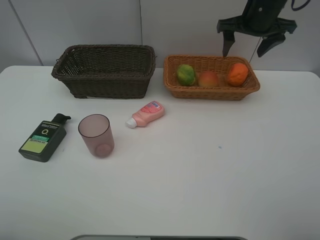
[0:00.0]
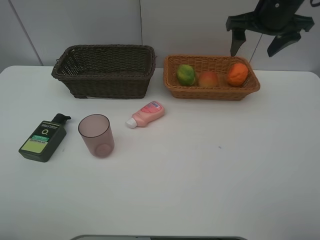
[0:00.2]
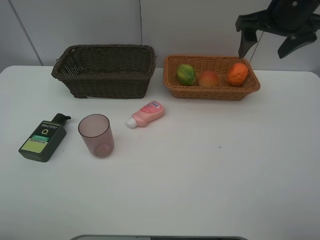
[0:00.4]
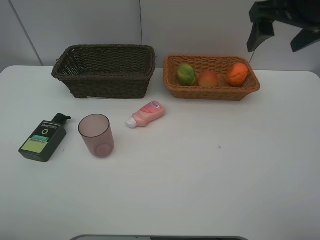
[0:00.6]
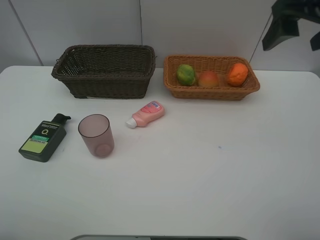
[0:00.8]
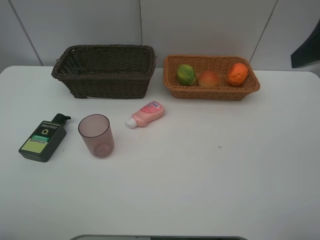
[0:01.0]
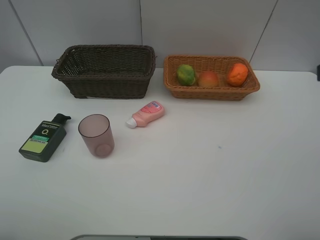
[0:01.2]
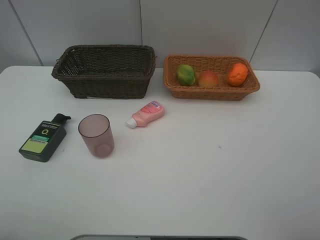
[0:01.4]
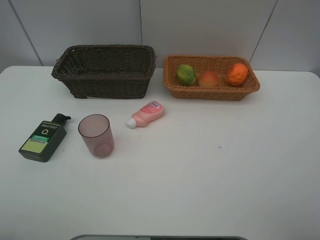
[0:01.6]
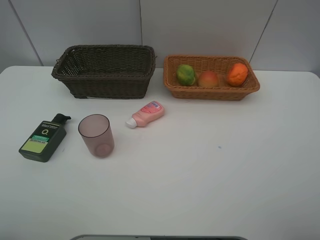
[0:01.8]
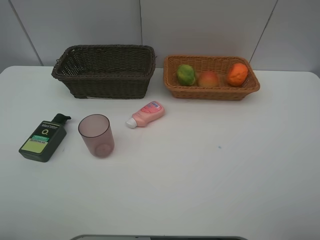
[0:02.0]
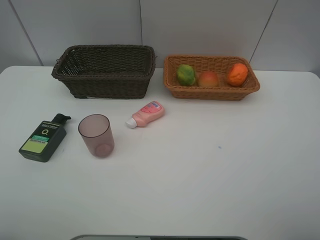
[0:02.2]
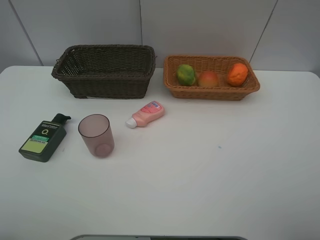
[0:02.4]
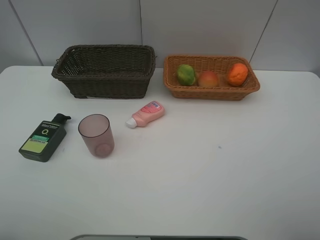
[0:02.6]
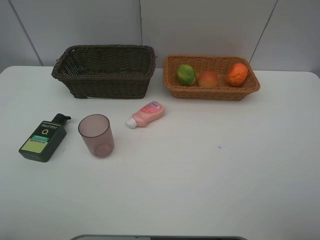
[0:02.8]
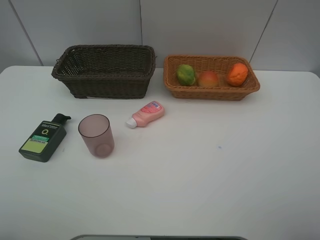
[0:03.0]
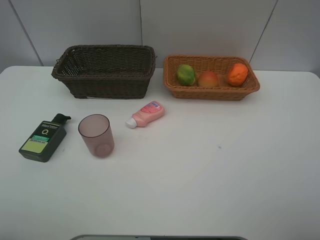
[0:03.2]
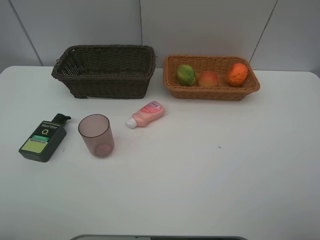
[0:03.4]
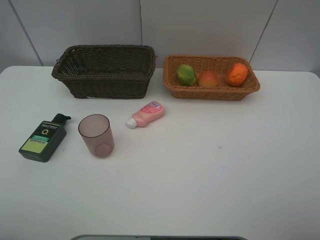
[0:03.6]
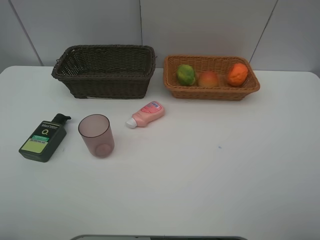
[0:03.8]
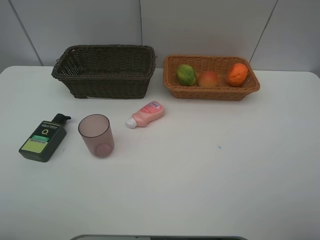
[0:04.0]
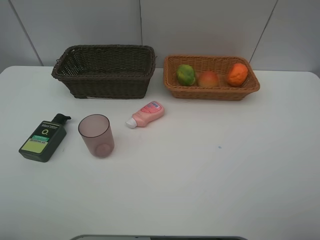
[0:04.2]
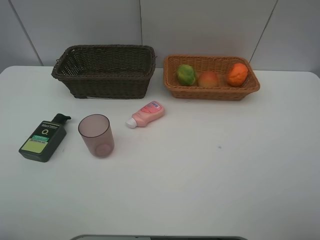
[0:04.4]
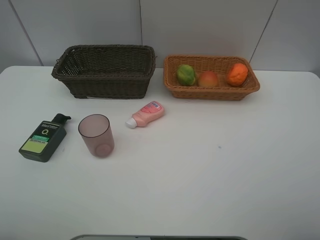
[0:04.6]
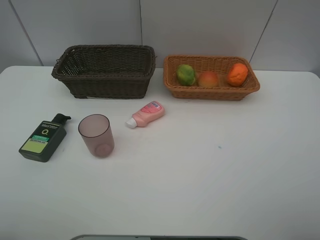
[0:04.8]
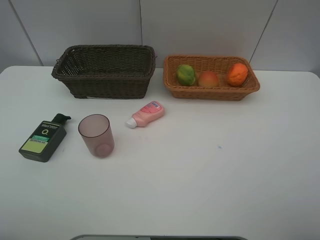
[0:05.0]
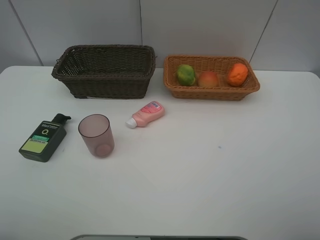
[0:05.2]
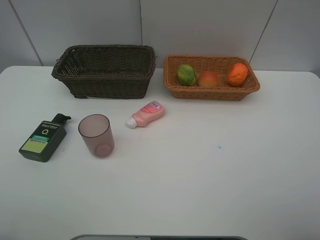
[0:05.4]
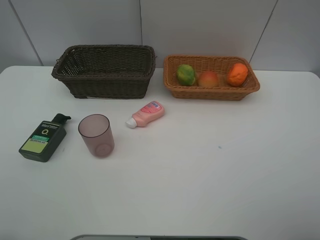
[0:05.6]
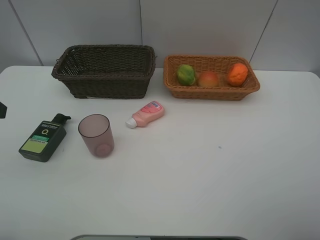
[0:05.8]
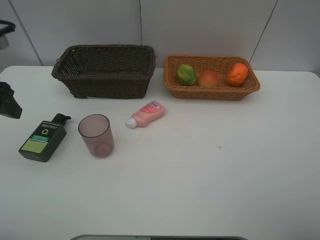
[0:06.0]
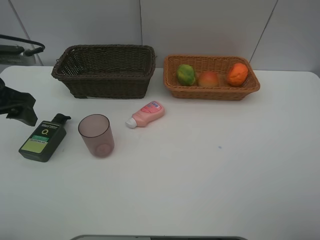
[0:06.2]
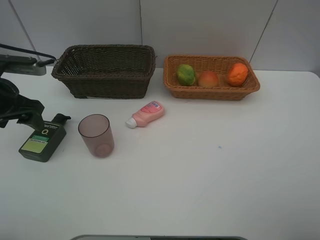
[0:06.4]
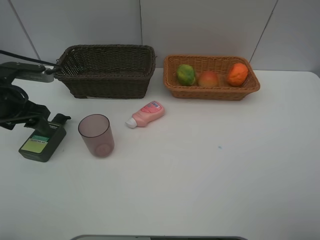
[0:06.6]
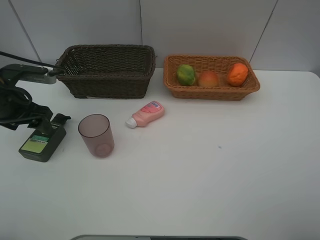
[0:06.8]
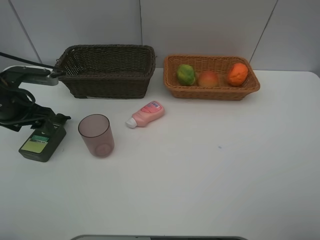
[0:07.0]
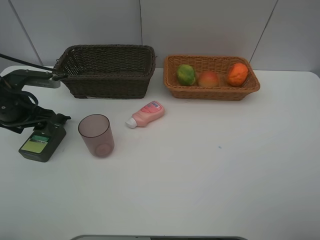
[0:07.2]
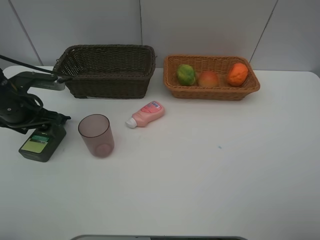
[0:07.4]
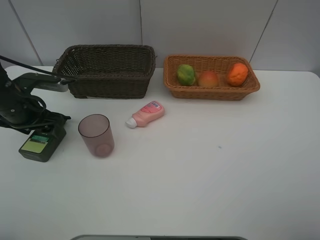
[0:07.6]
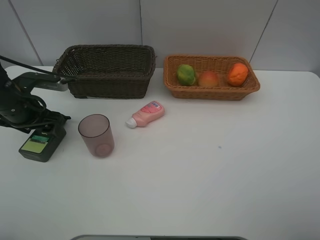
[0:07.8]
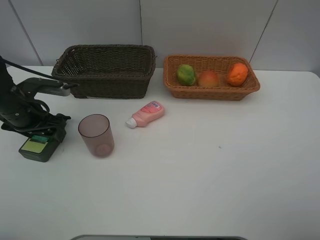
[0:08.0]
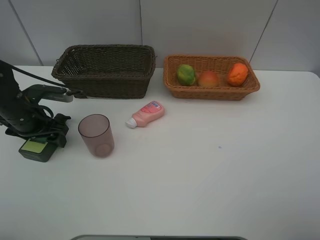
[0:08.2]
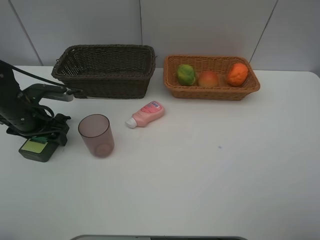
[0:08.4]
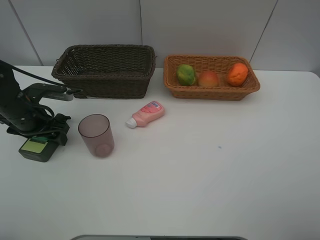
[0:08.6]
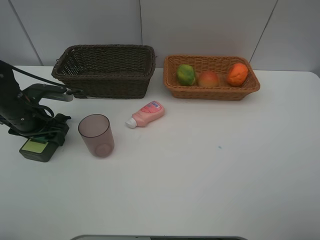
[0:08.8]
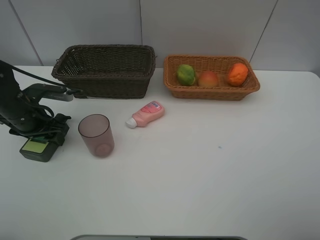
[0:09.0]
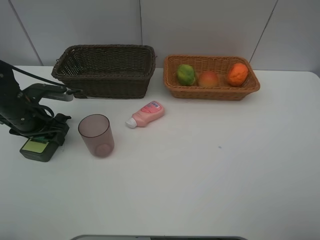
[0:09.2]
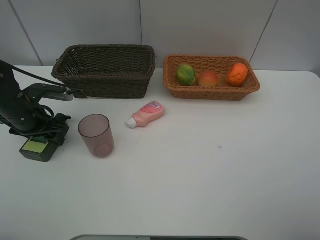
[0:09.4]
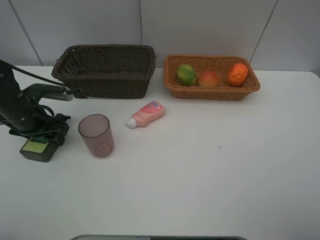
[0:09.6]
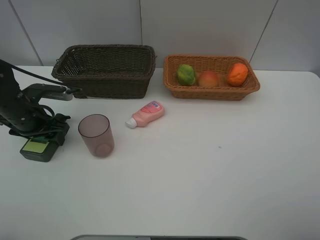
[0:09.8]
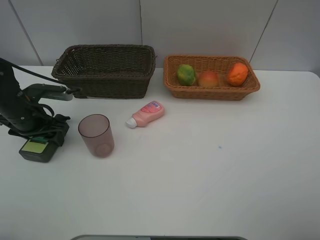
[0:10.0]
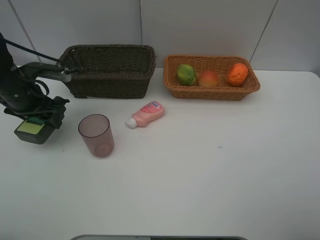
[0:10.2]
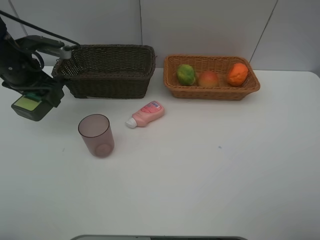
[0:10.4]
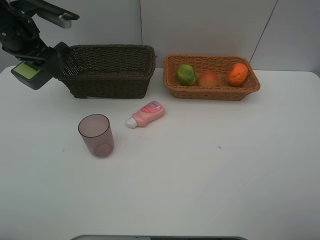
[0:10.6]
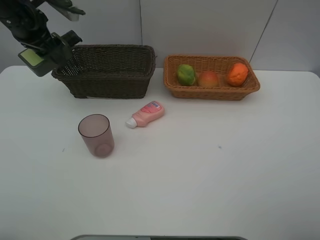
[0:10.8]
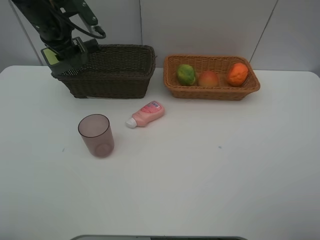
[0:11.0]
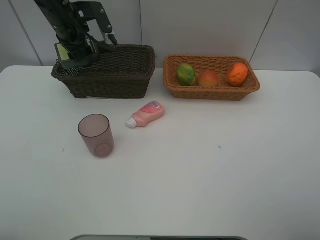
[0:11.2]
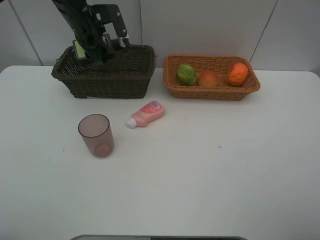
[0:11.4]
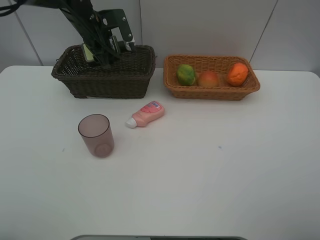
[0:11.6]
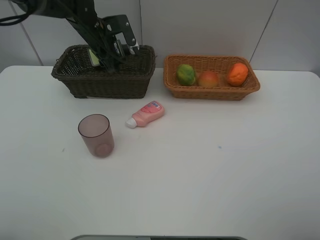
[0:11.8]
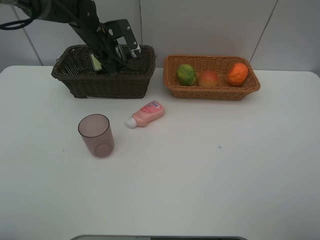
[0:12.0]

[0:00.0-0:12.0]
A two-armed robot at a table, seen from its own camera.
Task of the whole recording: place multiple objects separately in different baskets.
0:00.0 to 0:01.6: The right gripper moves backward, roughly 40 cm.
0:04.4 to 0:06.0: The left gripper travels forward by approximately 20 cm.
0:06.0 to 0:07.6: The left gripper heads downward and forward, covering some 15 cm.
0:07.6 to 0:09.0: The grippers make only small movements.
0:09.0 to 0:10.4: The left gripper travels upward and forward by about 10 cm.
0:10.4 to 0:12.0: The left gripper goes some 20 cm to the right and forward.

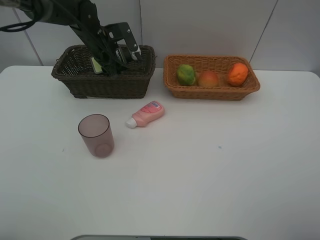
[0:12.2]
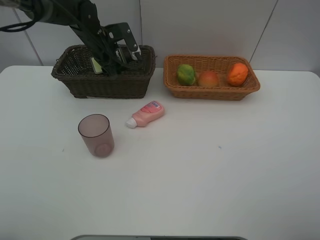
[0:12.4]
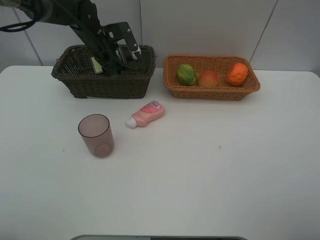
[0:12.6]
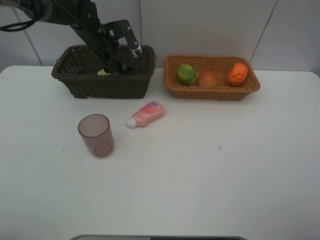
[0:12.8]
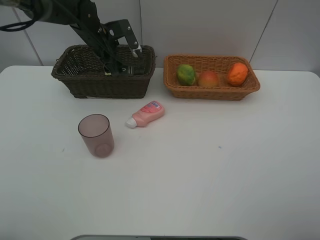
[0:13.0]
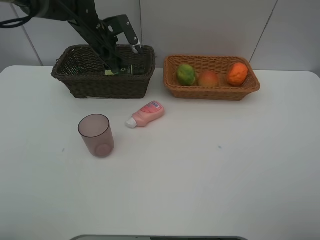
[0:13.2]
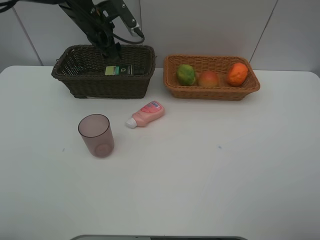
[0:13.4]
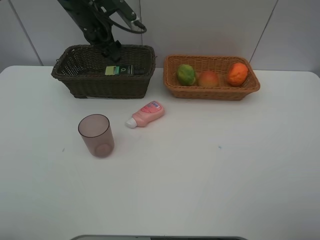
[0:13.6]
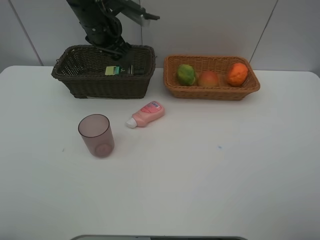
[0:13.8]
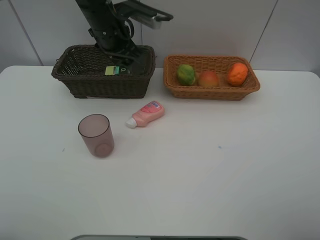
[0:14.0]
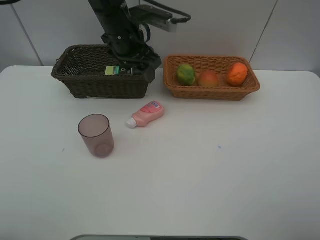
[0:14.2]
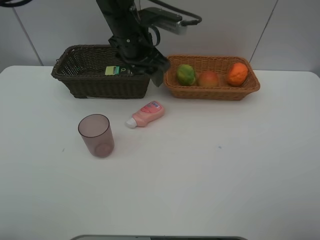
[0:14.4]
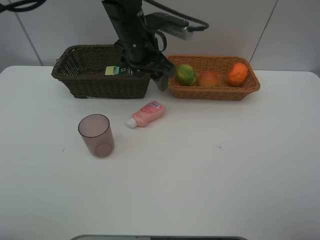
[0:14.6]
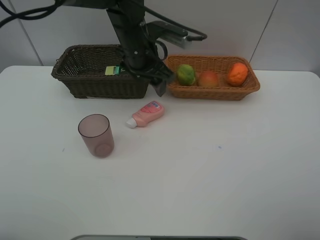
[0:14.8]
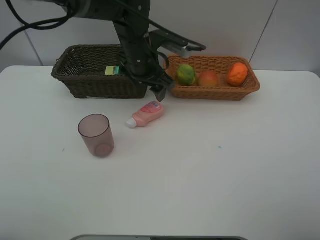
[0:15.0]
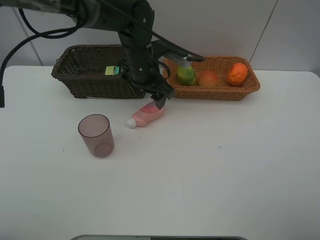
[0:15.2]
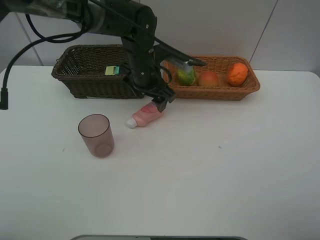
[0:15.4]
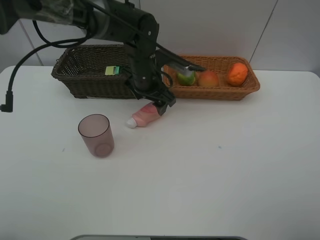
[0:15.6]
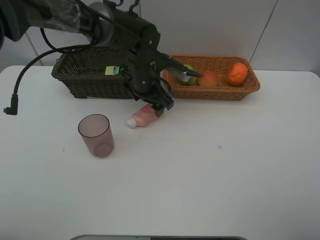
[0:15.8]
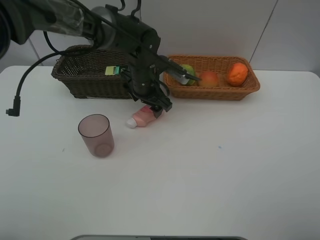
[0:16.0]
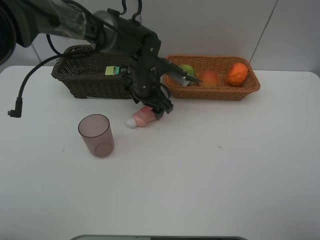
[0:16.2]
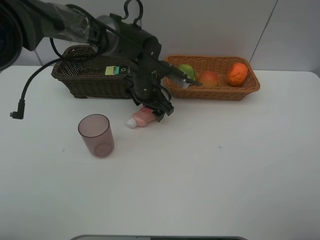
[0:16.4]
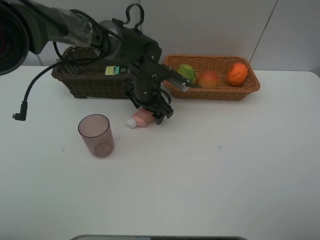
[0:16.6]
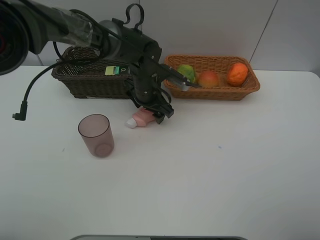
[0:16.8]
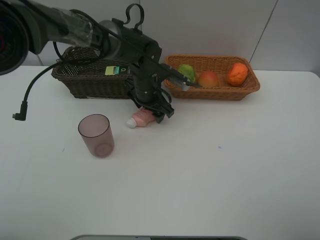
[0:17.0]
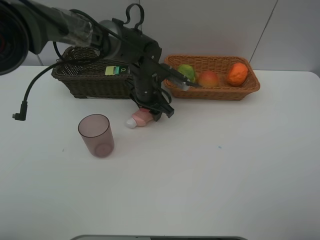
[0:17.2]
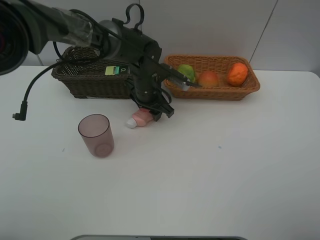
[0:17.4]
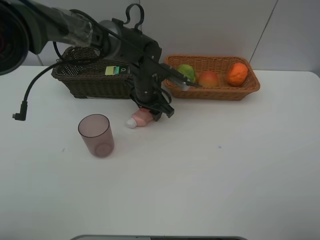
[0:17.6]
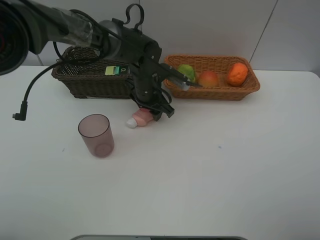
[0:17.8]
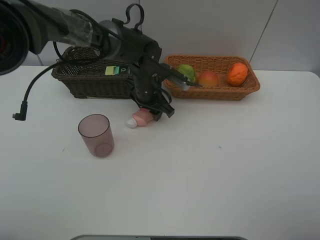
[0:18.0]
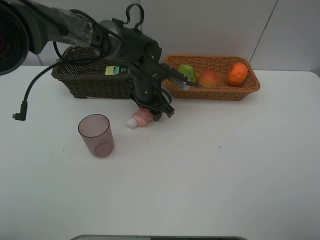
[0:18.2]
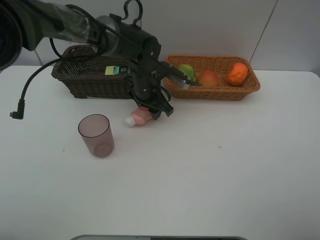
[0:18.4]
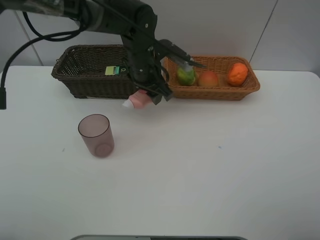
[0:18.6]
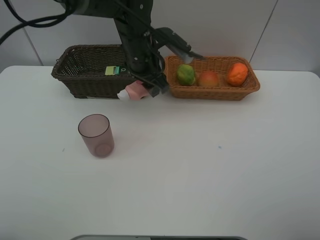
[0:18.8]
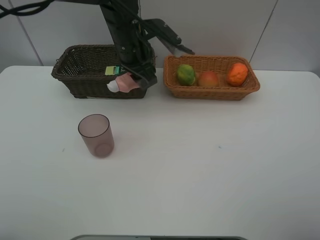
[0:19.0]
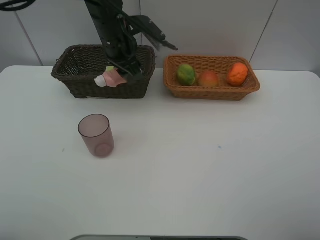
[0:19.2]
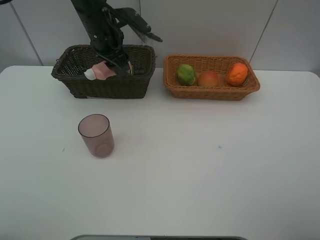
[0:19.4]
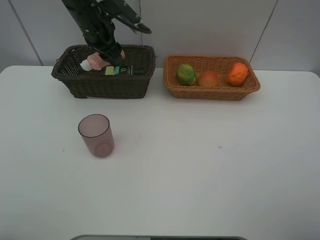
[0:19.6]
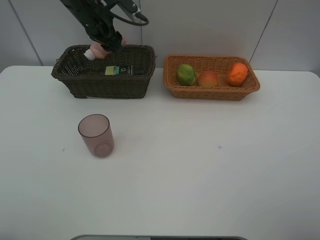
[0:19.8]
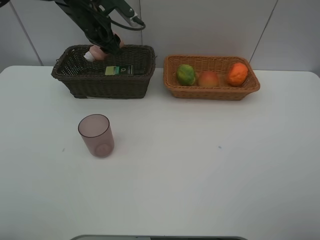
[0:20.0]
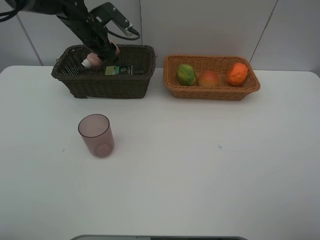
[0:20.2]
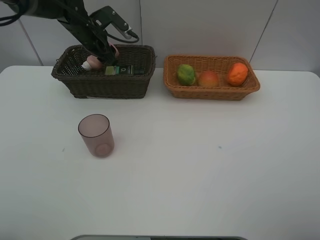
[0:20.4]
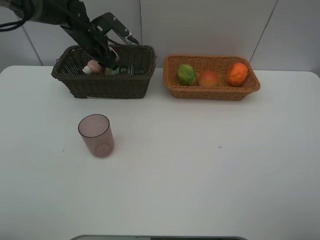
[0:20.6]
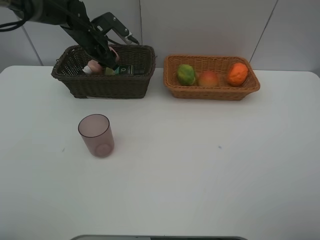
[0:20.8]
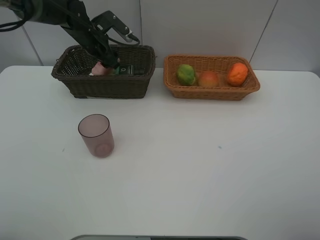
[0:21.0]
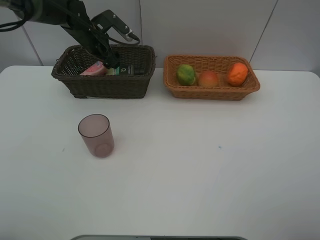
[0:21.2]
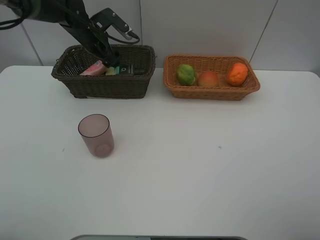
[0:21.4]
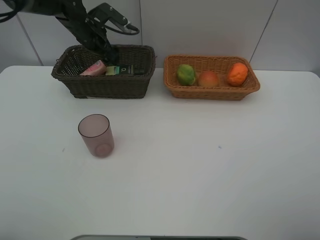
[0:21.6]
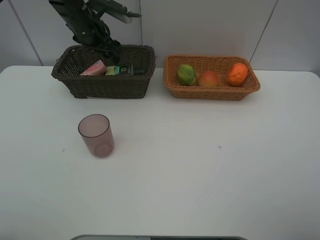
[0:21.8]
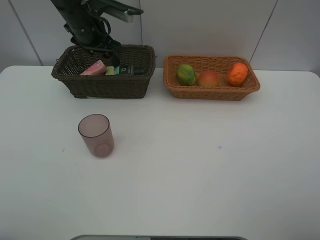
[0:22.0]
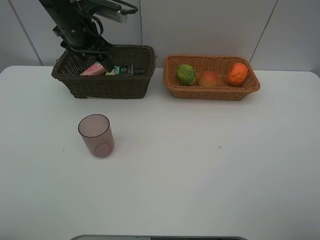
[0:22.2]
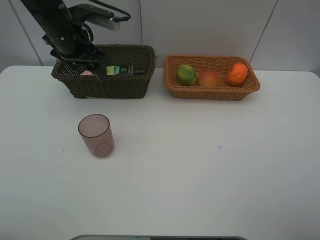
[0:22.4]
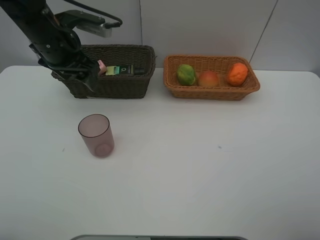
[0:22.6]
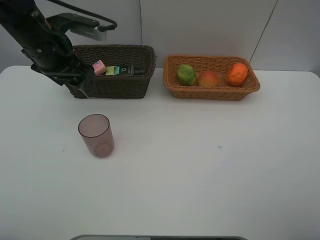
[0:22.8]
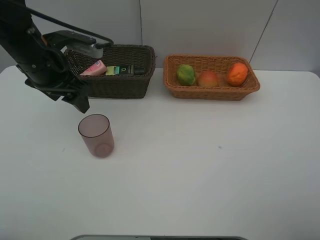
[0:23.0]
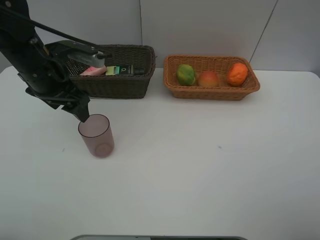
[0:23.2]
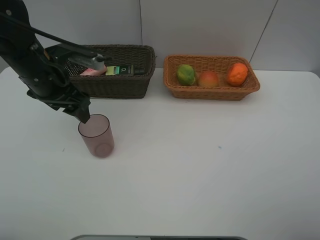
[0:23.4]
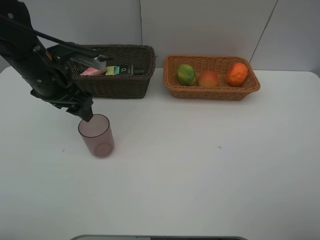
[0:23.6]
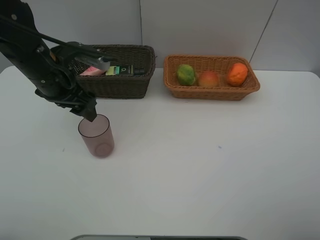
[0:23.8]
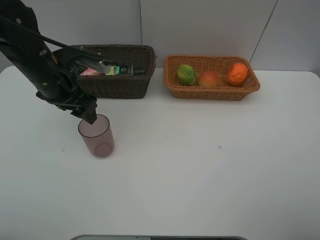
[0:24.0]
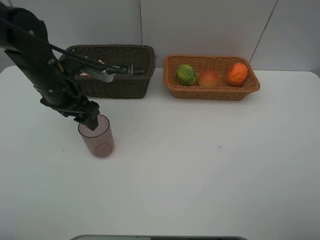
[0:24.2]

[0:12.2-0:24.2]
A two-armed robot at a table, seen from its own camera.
Task of the whole recording: place multiple objects separately in different baskets.
0:12.2 to 0:13.8: The left gripper moves upward and backward, roughly 10 cm.
0:13.8 to 0:15.2: The left gripper moves to the right and downward, some 10 cm.
0:15.2 to 0:16.6: The left gripper is displaced downward by approximately 5 cm.
0:16.6 to 0:18.2: Both grippers stay about where they are.
0:18.2 to 0:19.8: The left gripper moves upward, to the left and forward, some 20 cm.
0:19.8 to 0:21.2: The left gripper travels downward by roughly 5 cm.
0:21.2 to 0:22.6: The left gripper travels backward and upward by about 15 cm.
0:22.6 to 0:24.2: The left gripper heads downward, covering roughly 5 cm.
